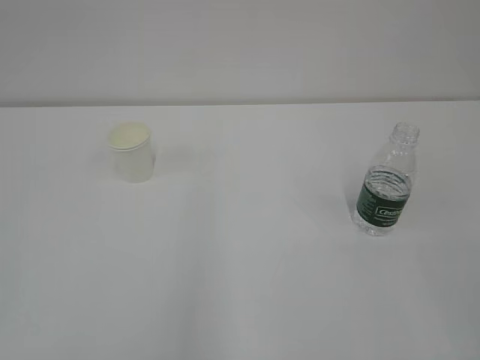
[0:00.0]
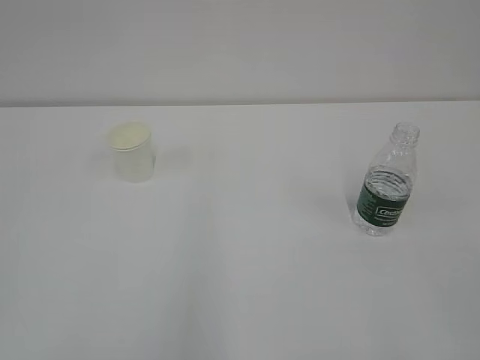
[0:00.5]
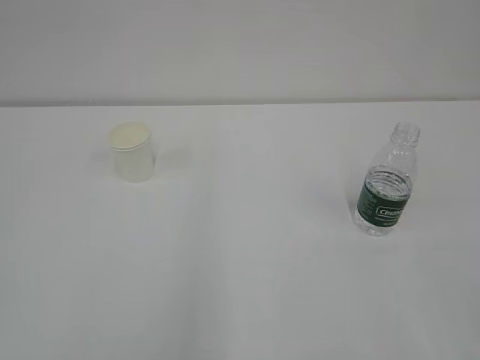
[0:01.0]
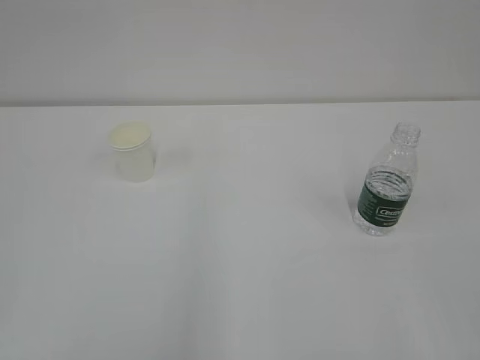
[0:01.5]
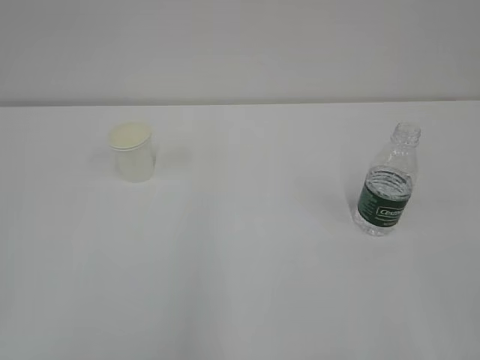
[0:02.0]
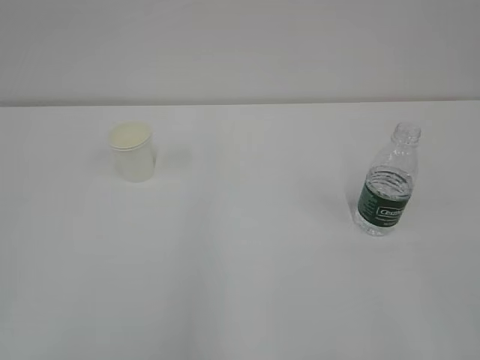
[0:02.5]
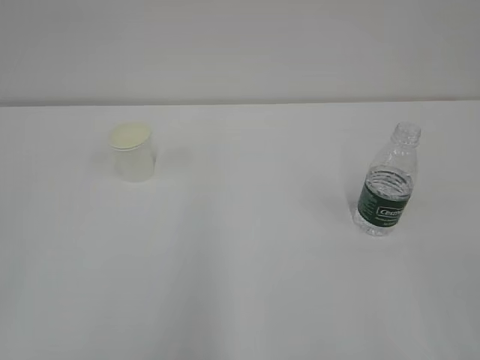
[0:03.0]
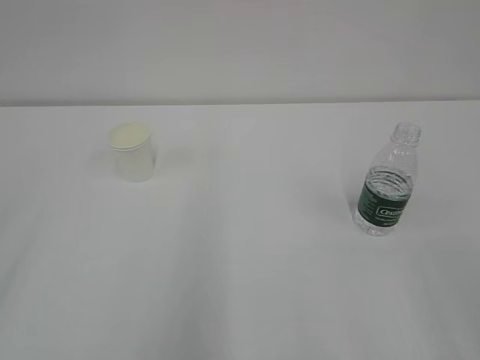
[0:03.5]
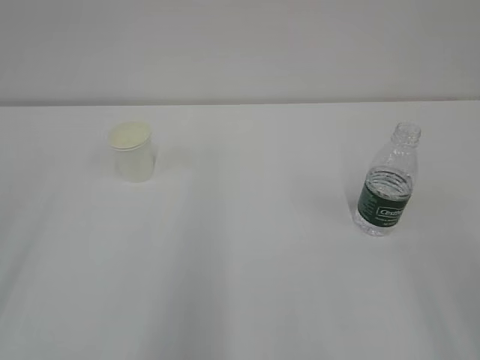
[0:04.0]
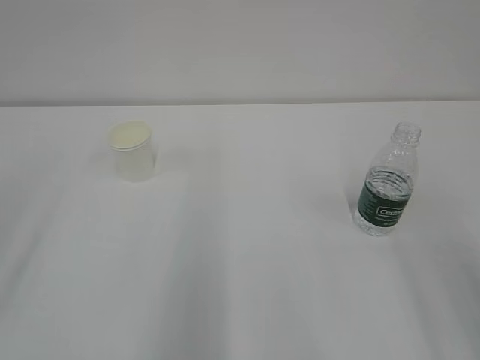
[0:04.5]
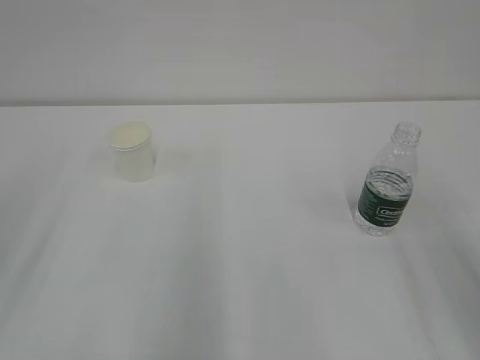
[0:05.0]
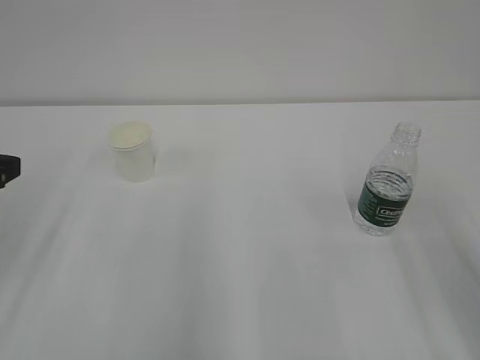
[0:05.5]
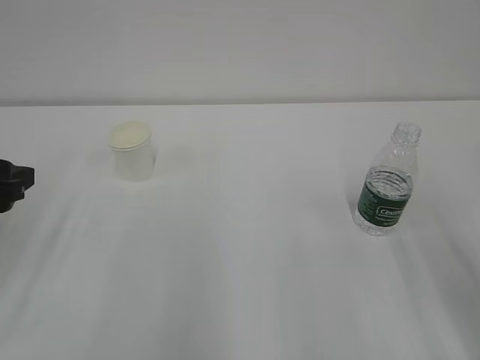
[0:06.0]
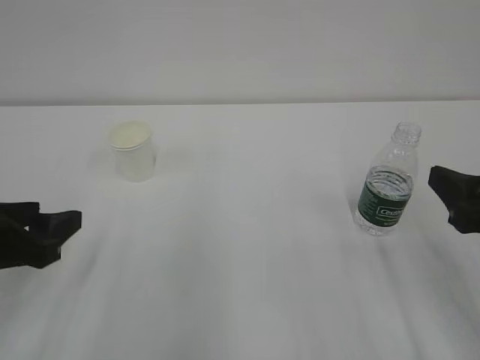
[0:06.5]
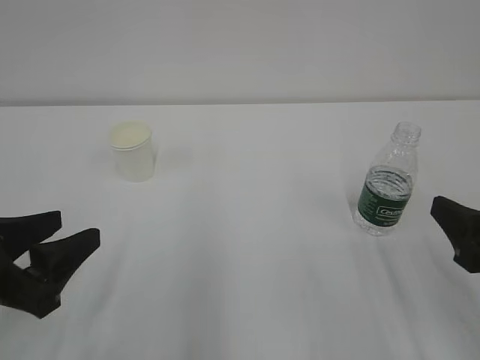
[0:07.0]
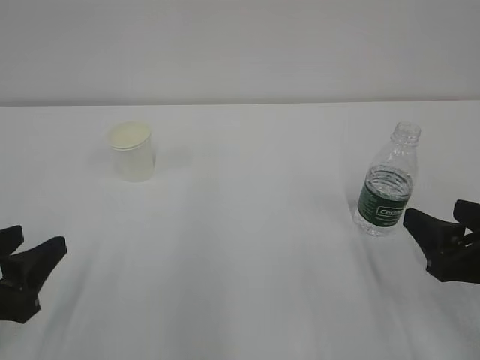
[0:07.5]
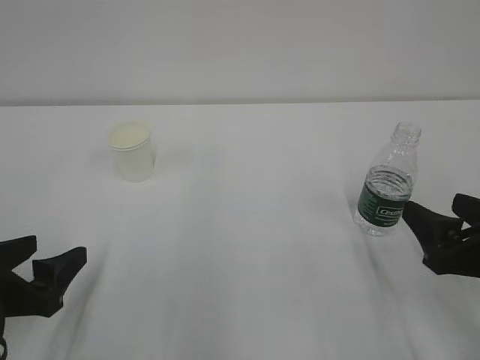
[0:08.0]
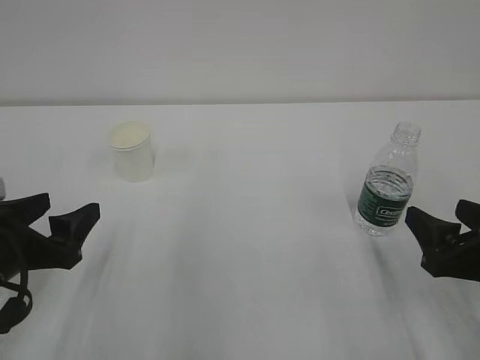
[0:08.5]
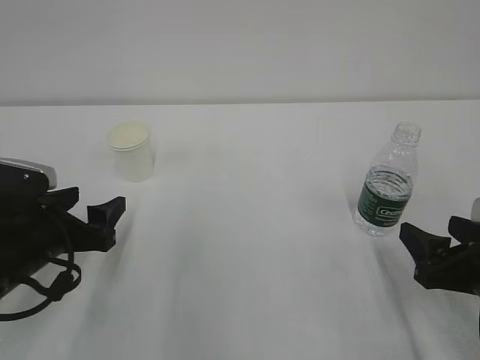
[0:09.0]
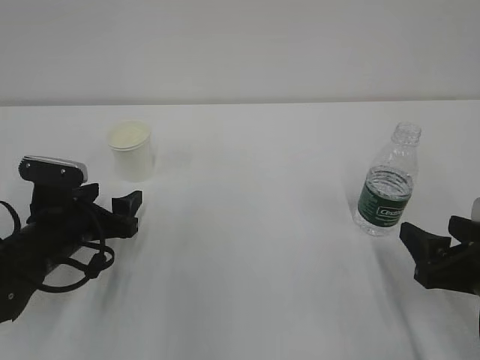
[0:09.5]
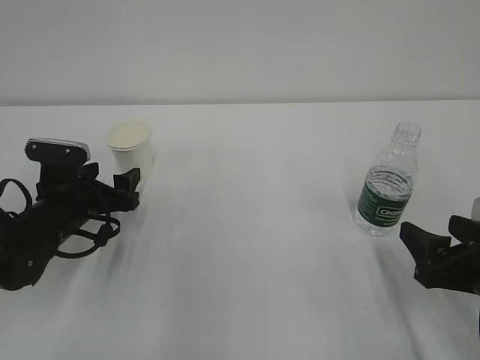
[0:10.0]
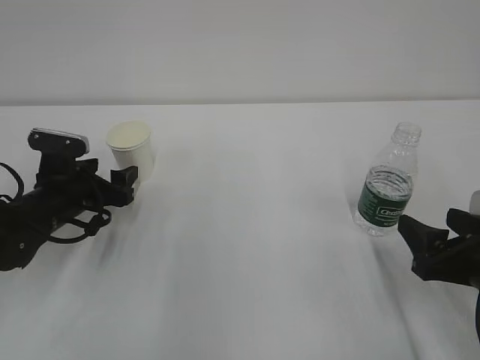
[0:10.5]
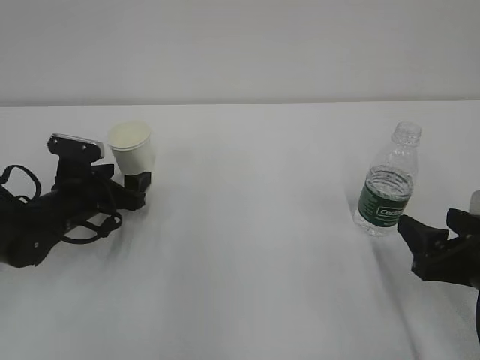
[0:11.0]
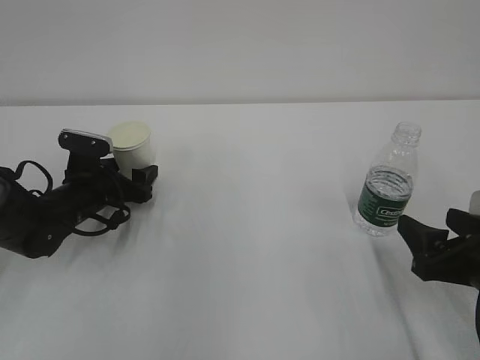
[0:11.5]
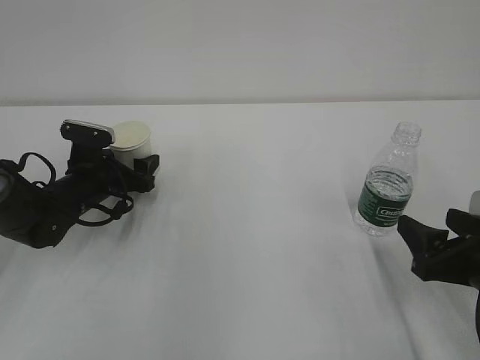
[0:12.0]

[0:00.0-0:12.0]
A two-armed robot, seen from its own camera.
0:04.0 to 0:06.0: The left gripper heads forward and downward, covering roughly 15 cm.
0:06.0 to 0:08.0: The right gripper heads downward, covering about 10 cm. Meanwhile the left gripper moves downward and backward, some 10 cm, and opens.
0:08.0 to 0:10.0: The left gripper is displaced forward by about 15 cm.
0:10.0 to 0:12.0: The left gripper is displaced forward by about 5 cm.

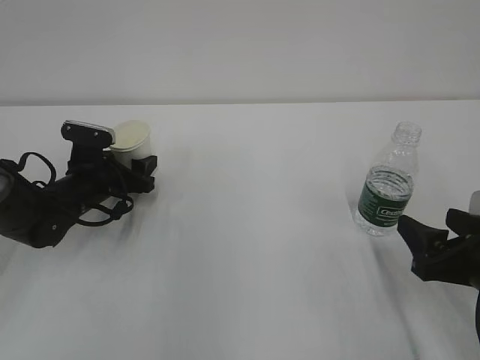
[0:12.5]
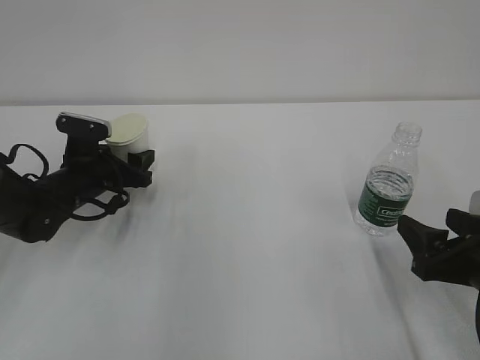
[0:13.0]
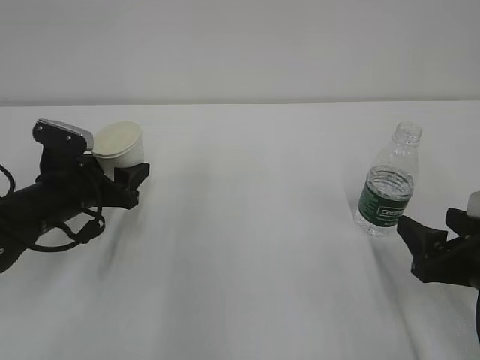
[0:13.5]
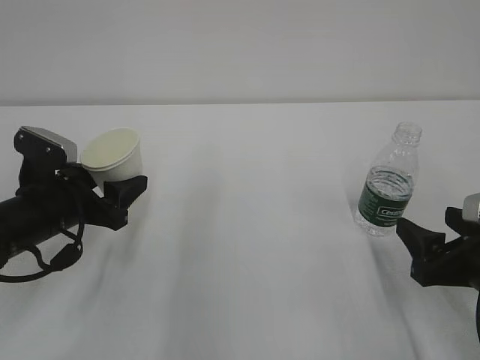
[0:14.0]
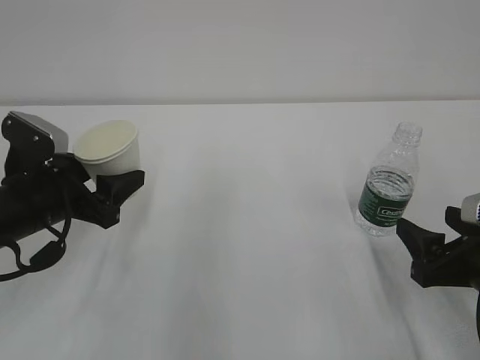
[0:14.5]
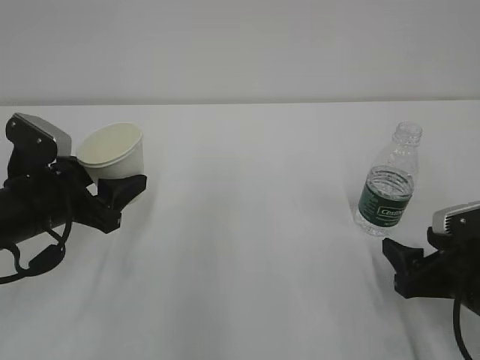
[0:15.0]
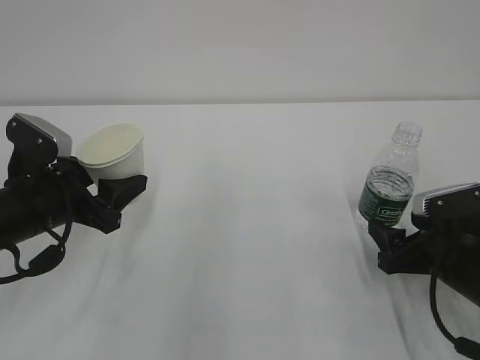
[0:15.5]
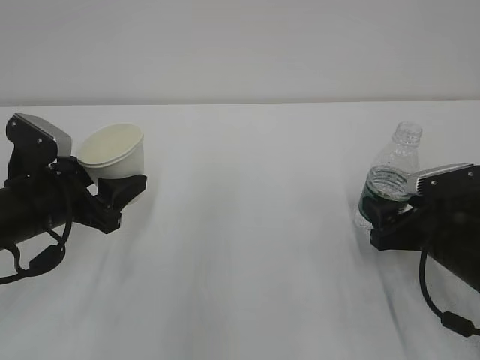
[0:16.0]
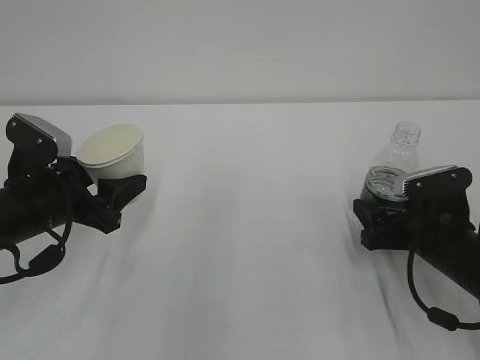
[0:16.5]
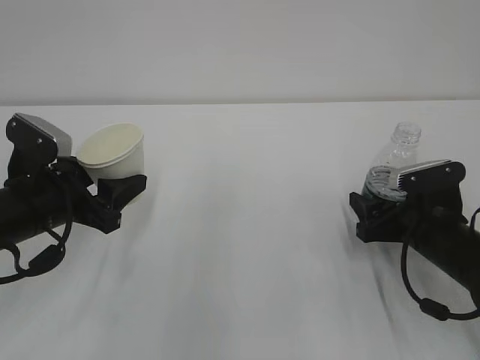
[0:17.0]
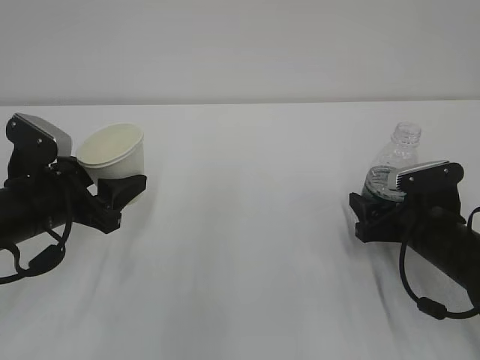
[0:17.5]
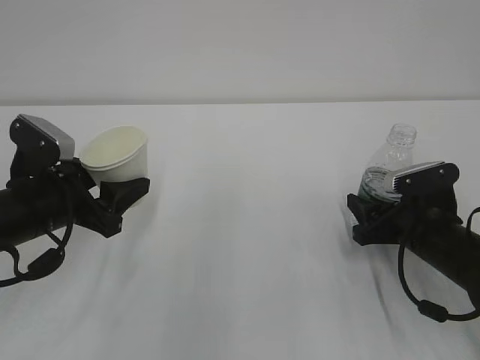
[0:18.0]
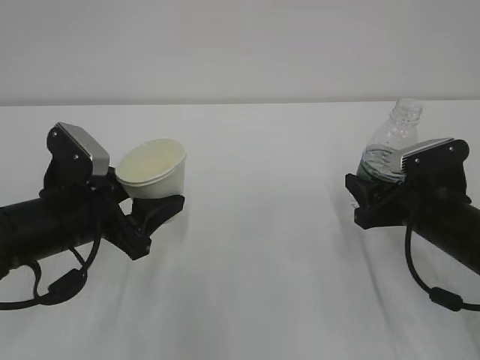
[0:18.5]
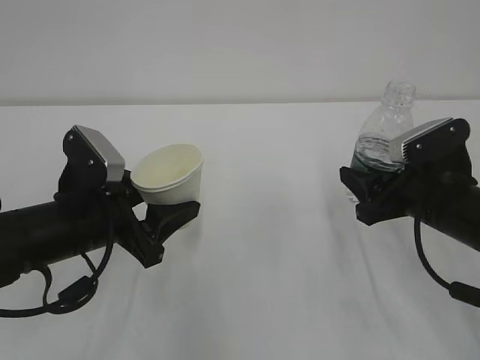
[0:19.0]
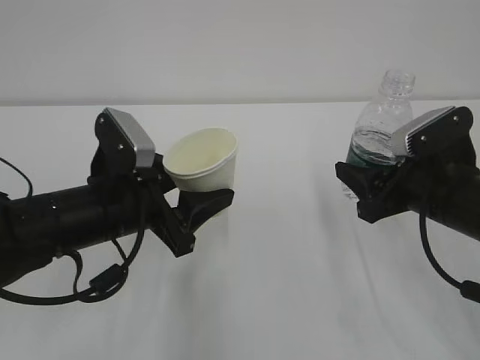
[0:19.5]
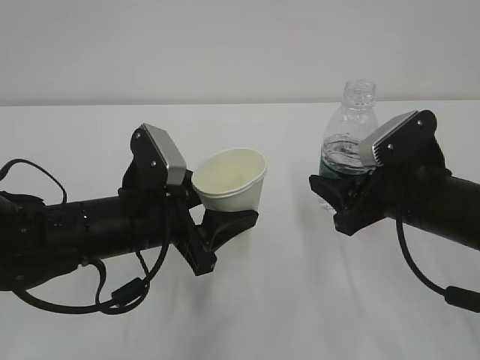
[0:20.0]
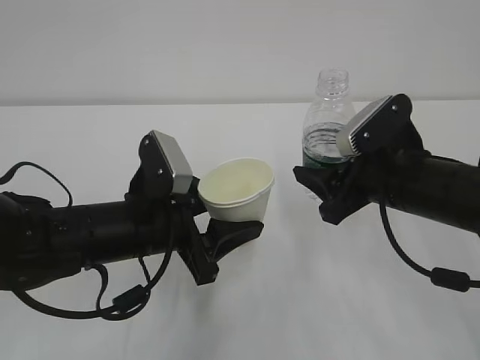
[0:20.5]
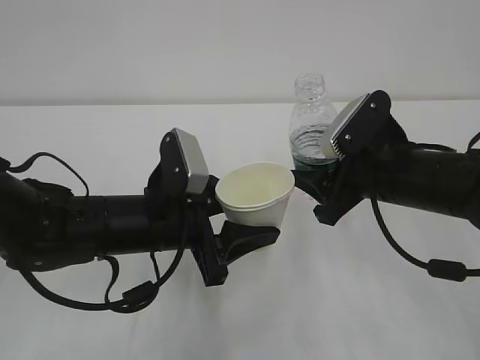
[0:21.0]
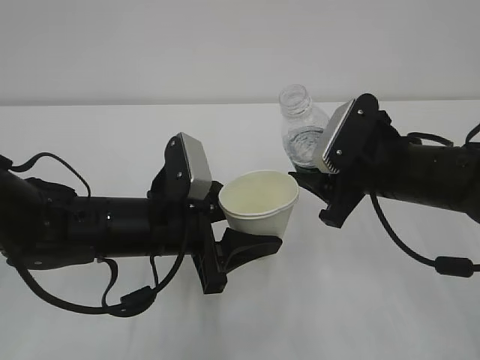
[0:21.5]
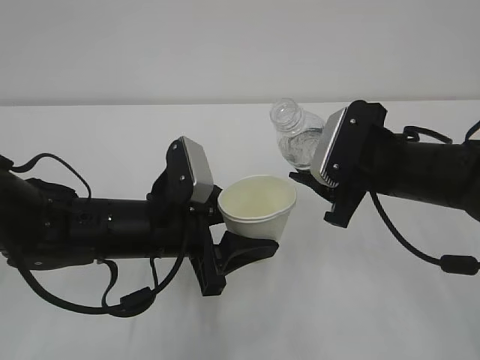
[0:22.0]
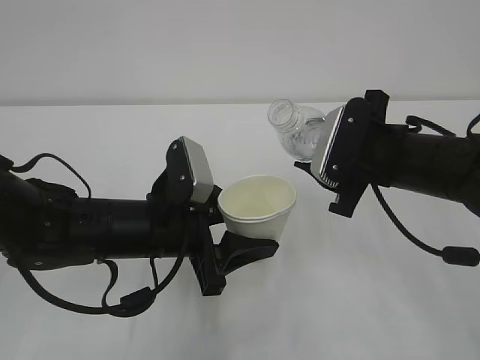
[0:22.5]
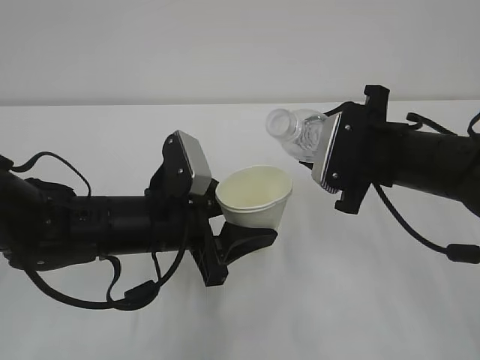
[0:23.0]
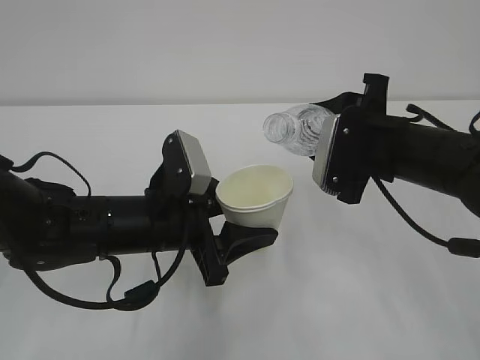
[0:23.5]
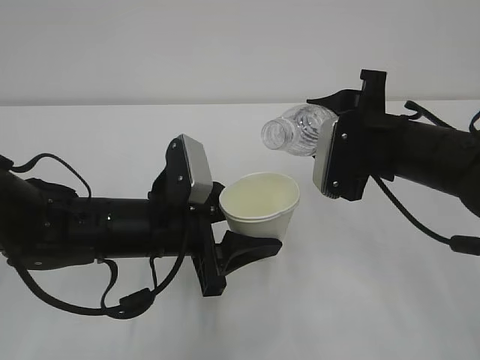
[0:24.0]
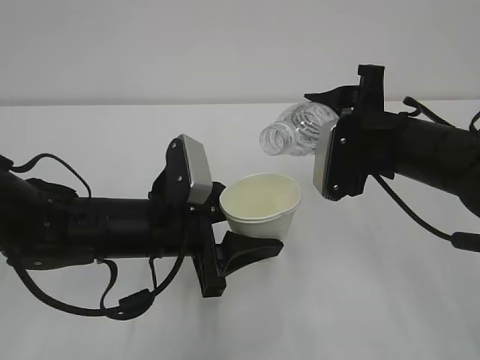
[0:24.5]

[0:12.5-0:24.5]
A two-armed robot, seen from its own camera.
0:12.5 to 0:14.5: The left gripper shifts approximately 15 cm backward and upward.
0:14.5 to 0:16.5: The right gripper goes roughly 10 cm forward.
0:16.5 to 0:18.5: The right gripper closes up.
0:18.5 to 0:20.5: The left gripper shifts some 10 cm to the right. The right gripper heads upward and to the left, covering approximately 10 cm.

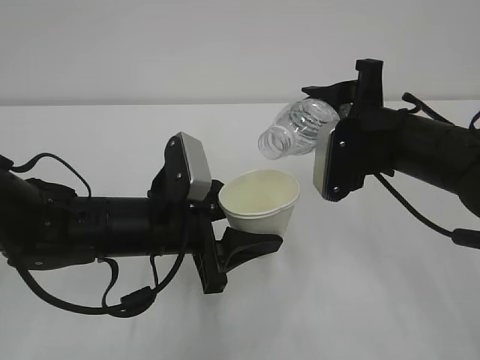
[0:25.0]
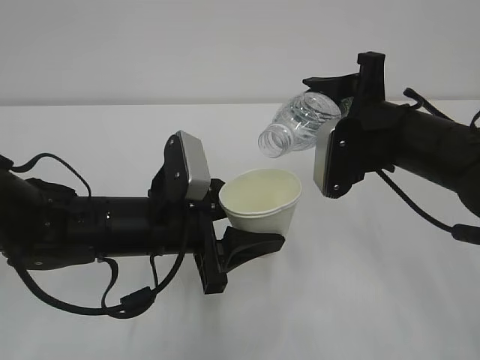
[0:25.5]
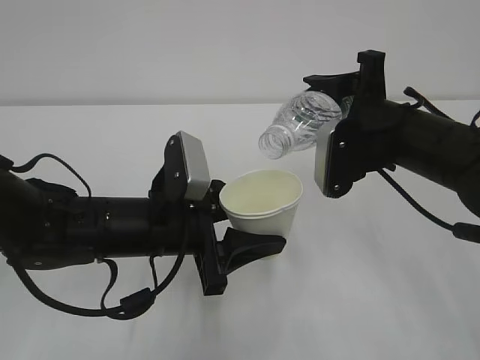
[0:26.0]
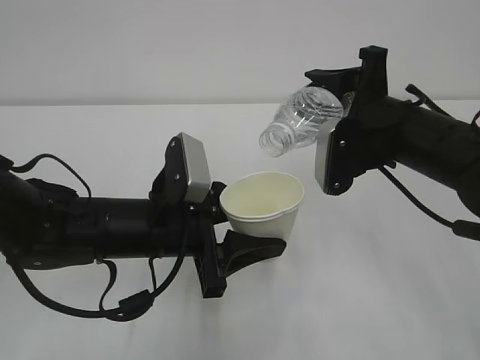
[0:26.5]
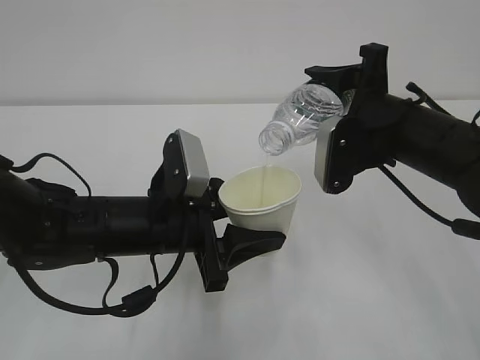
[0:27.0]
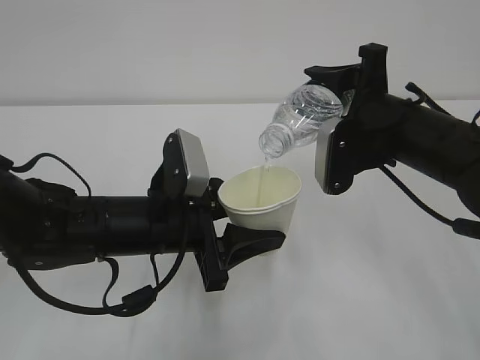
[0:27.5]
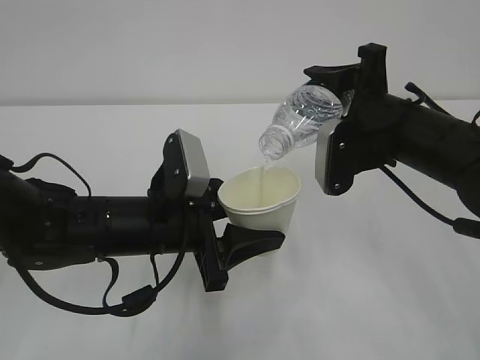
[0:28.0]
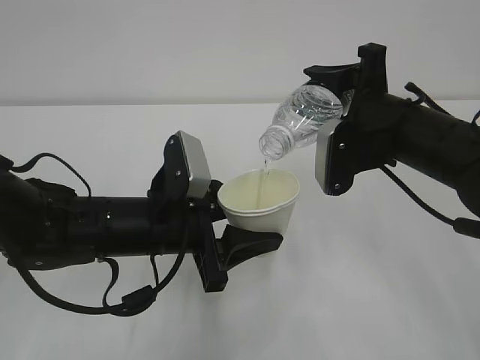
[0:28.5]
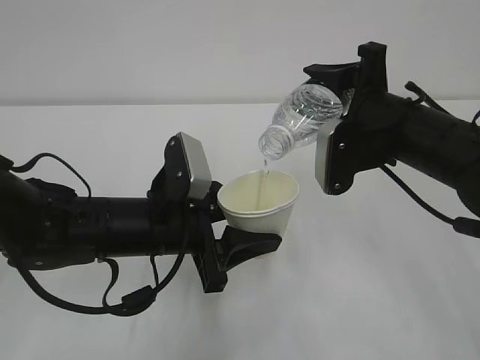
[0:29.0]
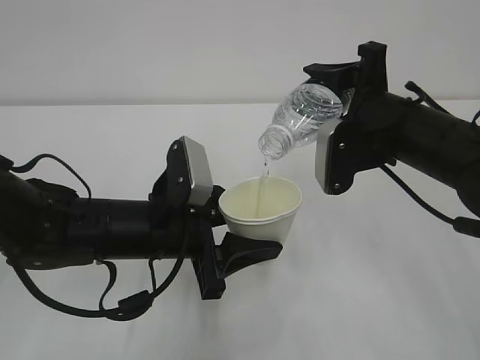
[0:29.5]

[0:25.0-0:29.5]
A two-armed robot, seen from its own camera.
0:25.0 to 0:27.0: There are only small adjustments of the grippers.
0:27.0 to 0:29.5: Neither gripper changes place.
